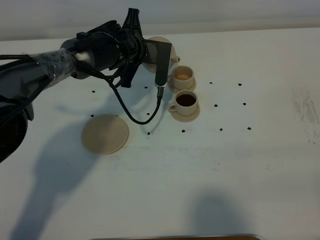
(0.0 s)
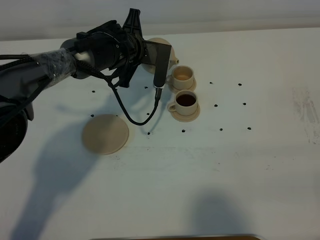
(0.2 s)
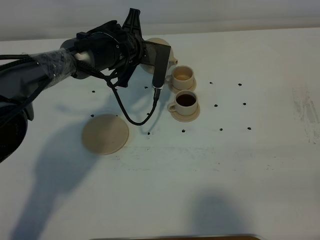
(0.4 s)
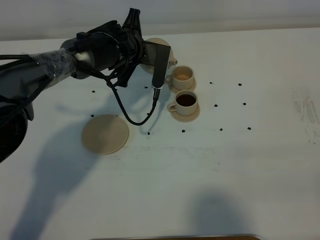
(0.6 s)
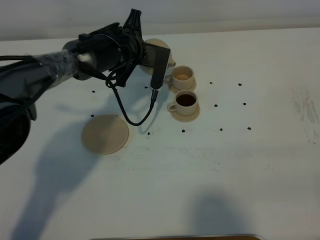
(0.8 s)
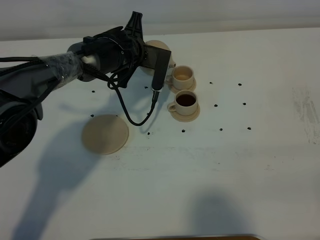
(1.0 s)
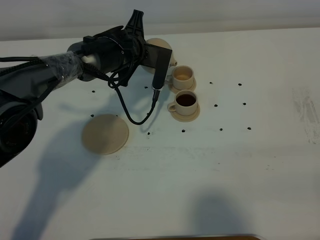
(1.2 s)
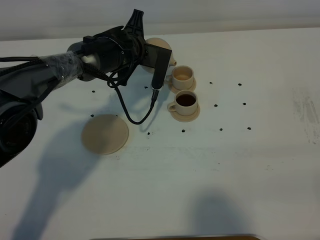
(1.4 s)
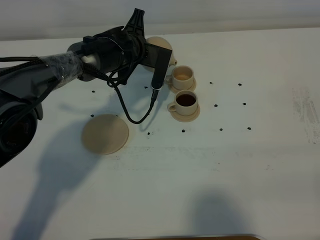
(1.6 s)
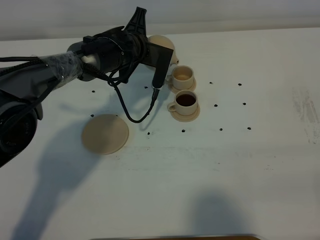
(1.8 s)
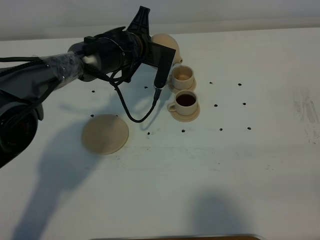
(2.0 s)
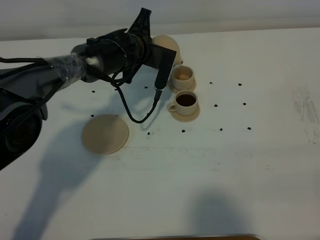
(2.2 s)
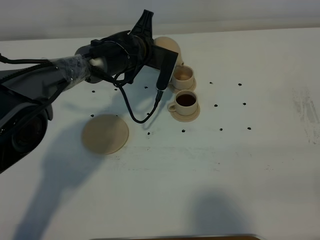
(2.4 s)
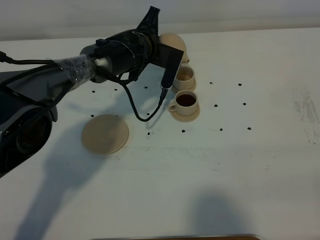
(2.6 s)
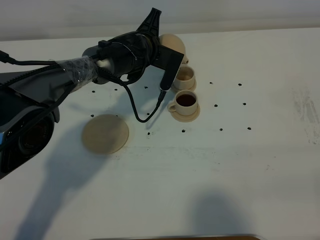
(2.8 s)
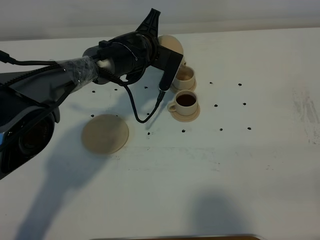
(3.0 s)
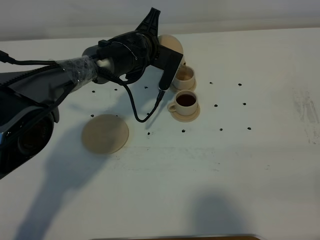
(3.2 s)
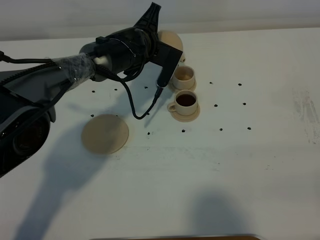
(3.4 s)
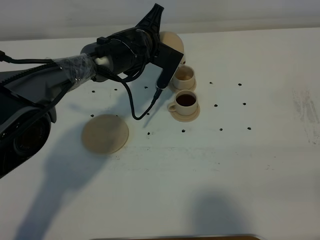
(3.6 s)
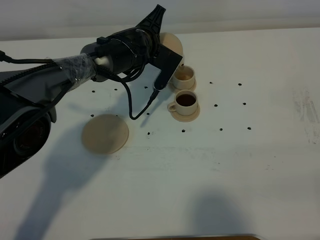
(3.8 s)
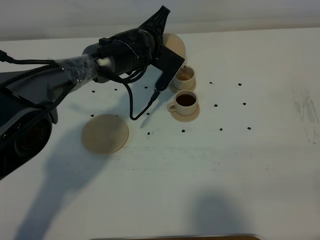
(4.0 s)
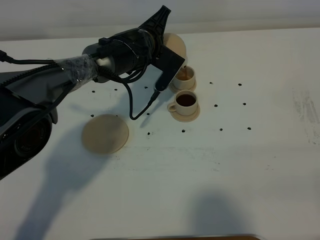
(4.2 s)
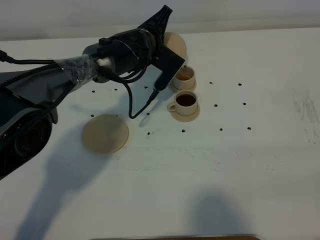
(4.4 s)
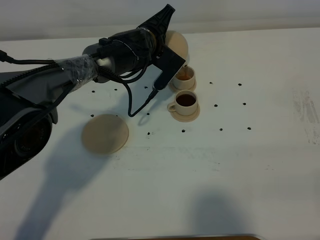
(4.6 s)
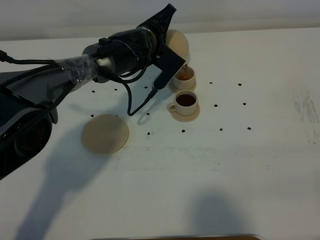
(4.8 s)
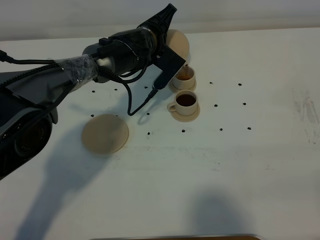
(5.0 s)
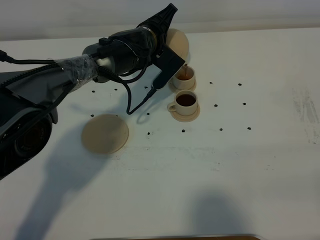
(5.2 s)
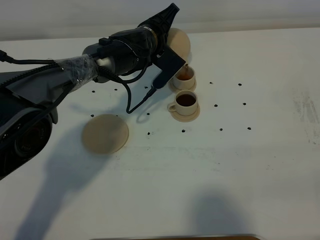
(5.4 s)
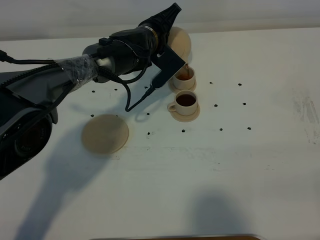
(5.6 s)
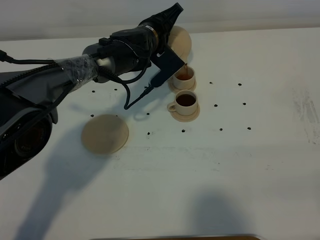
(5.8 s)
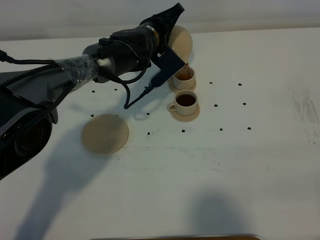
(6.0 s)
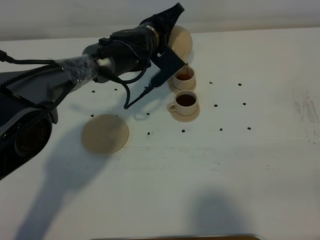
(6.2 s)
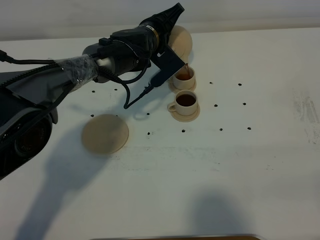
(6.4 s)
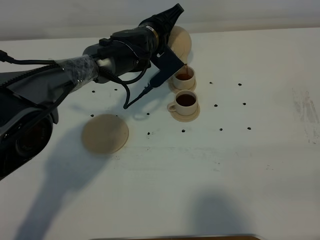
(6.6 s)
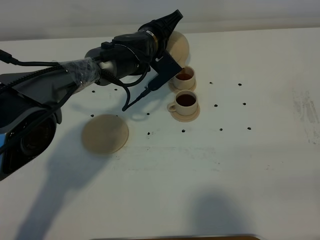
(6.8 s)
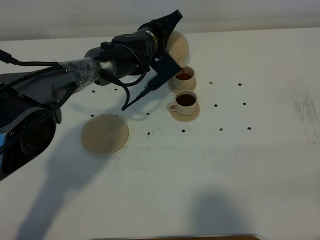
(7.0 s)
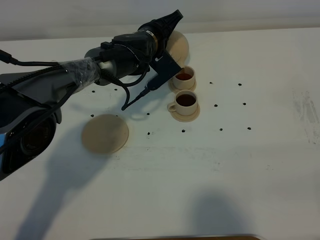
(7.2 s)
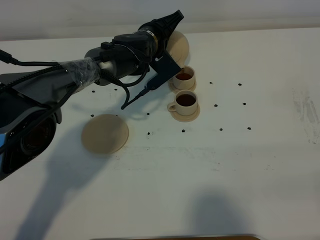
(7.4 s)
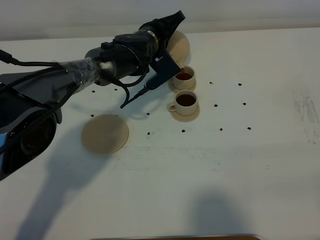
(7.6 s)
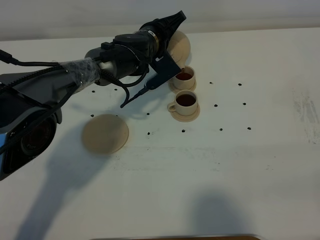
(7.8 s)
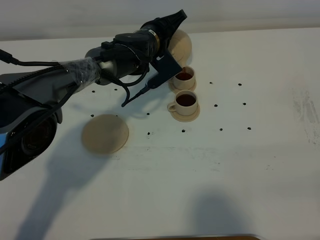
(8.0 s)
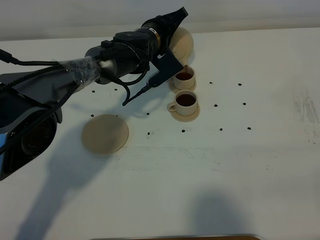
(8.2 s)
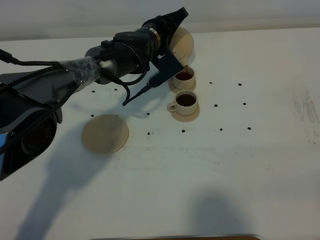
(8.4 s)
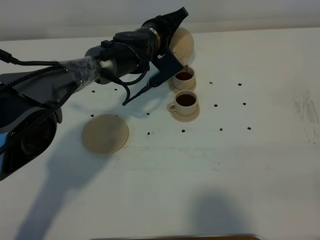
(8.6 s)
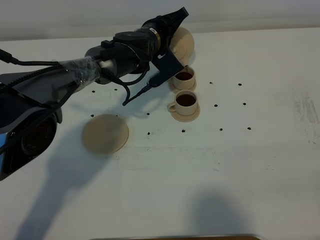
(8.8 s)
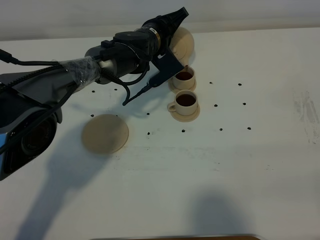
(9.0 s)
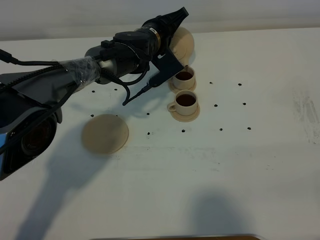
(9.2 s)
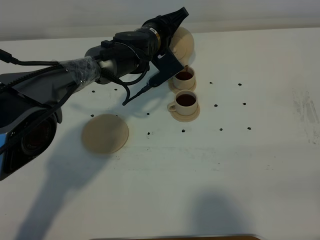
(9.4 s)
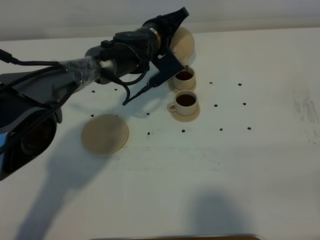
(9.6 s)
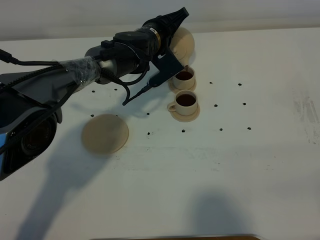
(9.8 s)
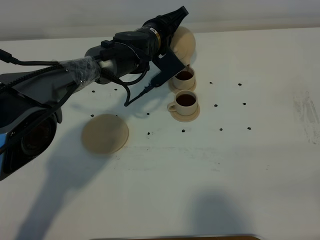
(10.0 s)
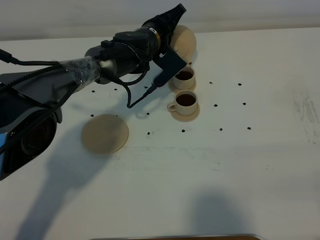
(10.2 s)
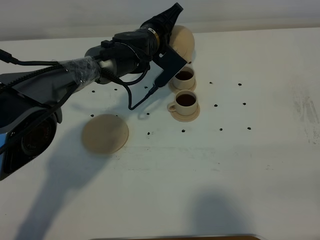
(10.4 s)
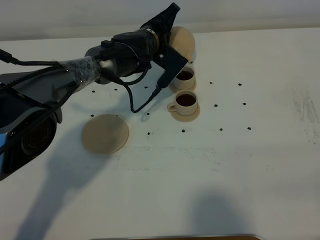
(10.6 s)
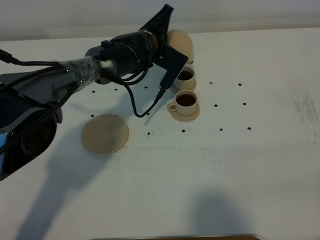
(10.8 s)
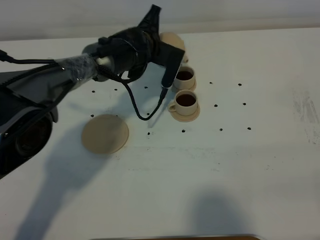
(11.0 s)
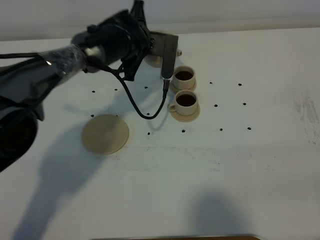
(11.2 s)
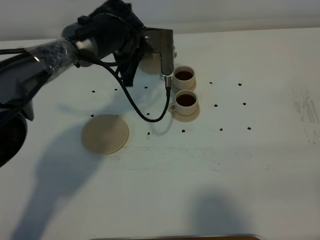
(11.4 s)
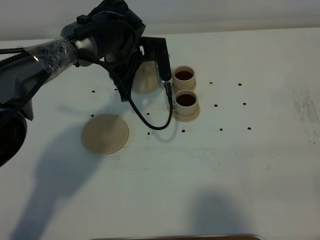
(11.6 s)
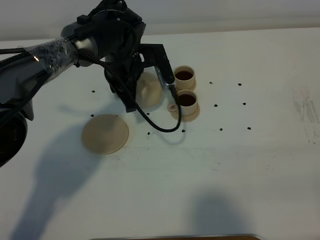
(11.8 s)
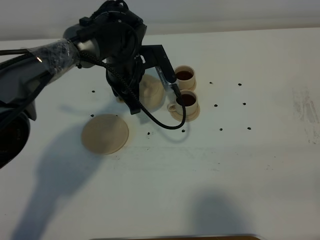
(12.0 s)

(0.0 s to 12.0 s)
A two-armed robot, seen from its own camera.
Task of the whole recording: grasp the brown teapot and pour the tea into the two brown teacups one by one, put the brown teapot back in its original place.
Step, 0.0 s - 11.2 s: Pour tea into the teacup with the left gripper.
0.0 s - 3.0 s: The grippers make only small movements.
3.0 s - 4.4 s: The grippers move only a little.
4.4 s - 7.6 s: The grippers move only a little.
7.6 s - 9.0 s: Both grippers stay put.
9.0 s - 10.4 s: The grippers stay close to where they were, moving slightly.
10.4 s - 12.0 s: The left gripper goes some 5 cm backward.

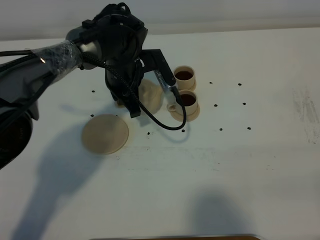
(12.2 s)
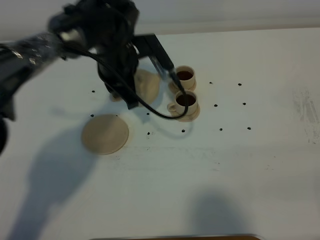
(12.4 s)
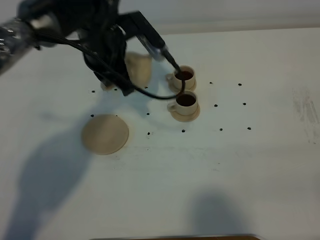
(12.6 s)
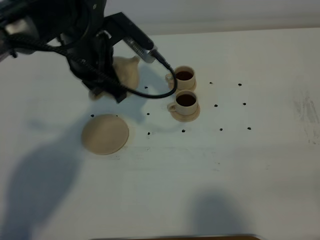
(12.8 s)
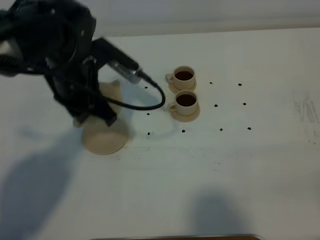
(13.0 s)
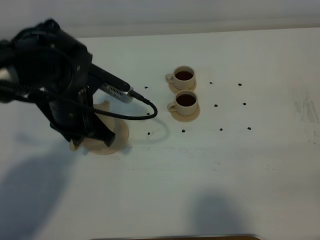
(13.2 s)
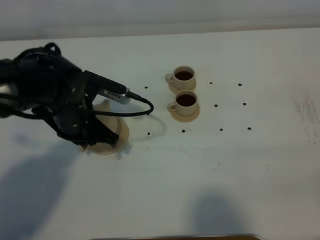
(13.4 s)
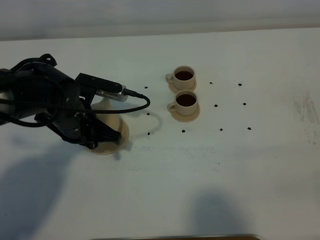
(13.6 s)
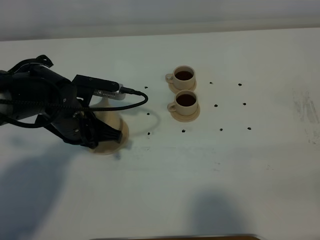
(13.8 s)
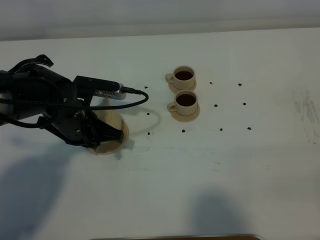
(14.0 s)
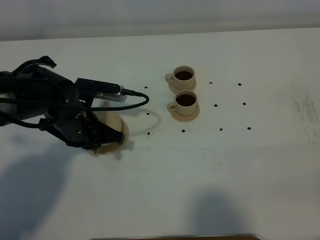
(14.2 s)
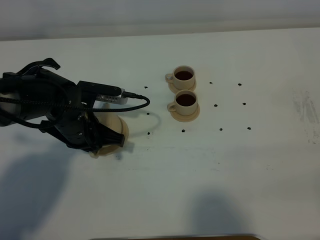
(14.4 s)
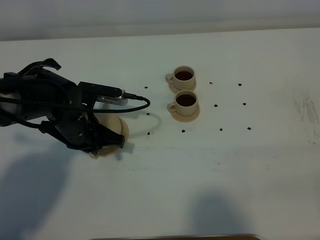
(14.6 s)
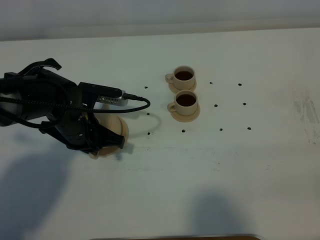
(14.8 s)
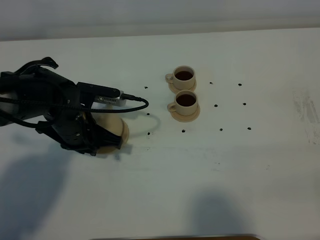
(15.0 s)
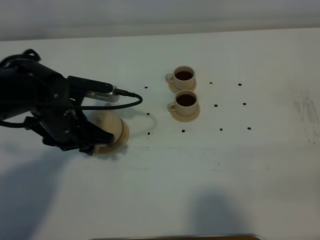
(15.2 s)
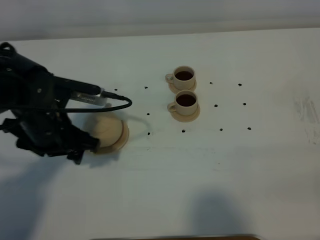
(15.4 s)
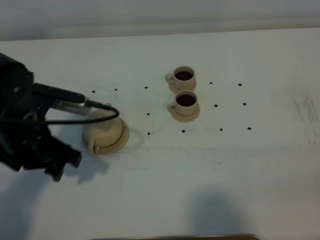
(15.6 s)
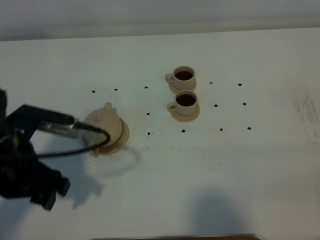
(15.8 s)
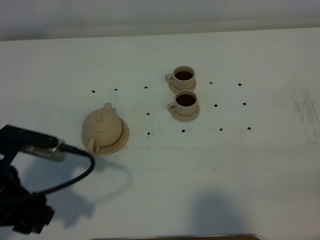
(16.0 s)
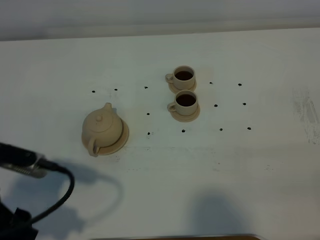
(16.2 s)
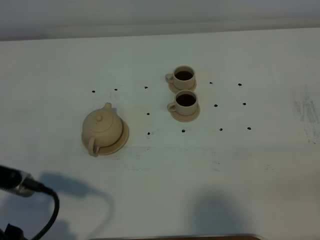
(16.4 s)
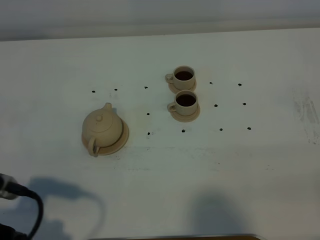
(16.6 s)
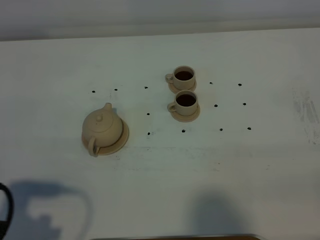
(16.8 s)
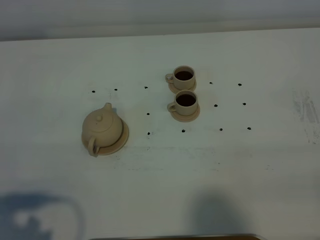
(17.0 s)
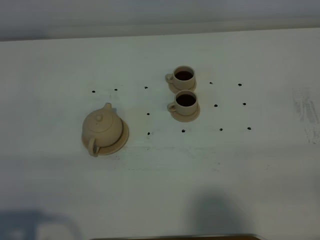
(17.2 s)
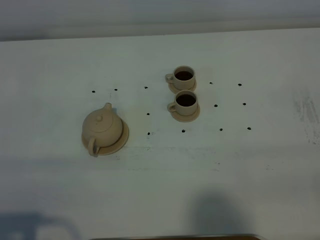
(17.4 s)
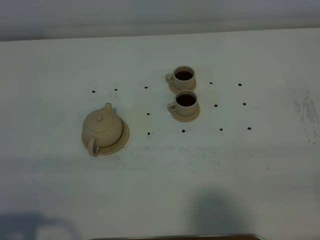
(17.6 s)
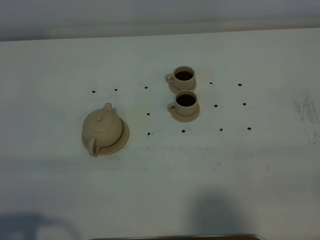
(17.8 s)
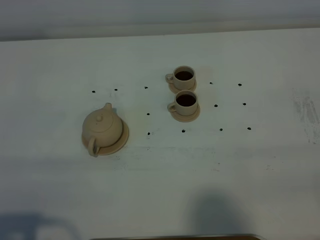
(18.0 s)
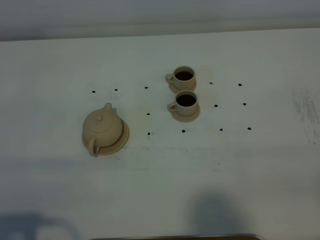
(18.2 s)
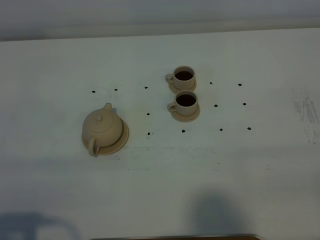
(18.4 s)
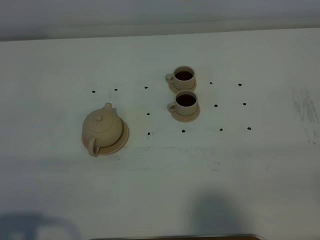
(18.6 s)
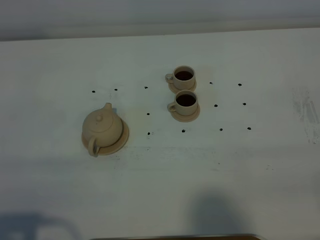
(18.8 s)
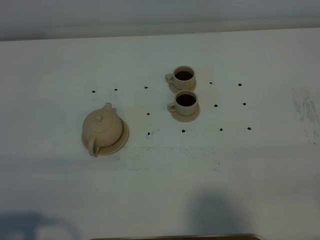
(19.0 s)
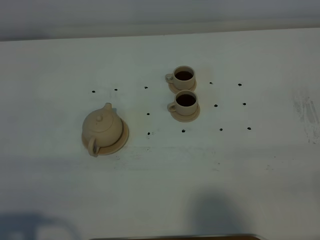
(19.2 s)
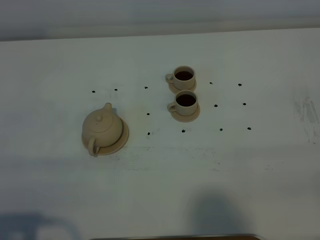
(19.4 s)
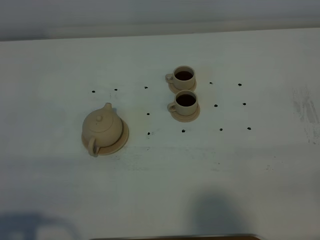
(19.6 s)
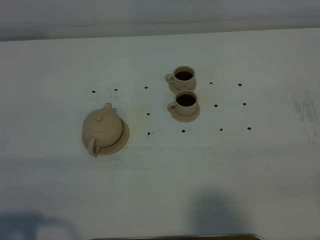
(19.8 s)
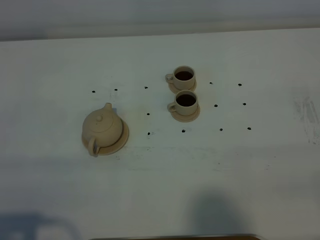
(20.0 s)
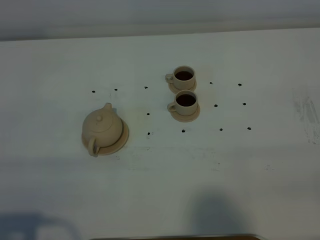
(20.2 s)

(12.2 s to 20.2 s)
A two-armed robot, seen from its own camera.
Task of the whole recording: grasp the brown teapot and pour the tea into the two brown teacups one by one, put the brown teapot back in its original place.
12.2 s - 13.8 s: The left gripper travels backward and to the left by about 15 cm.
13.8 s - 15.4 s: The left gripper ends up approximately 5 cm from where it was, and opens its fingers.
15.4 s - 17.0 s: The left gripper shifts approximately 25 cm backward and to the left.
17.0 s - 18.6 s: The grippers move only a little.
18.6 s - 20.2 s: The two grippers keep their place.

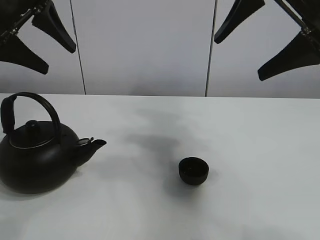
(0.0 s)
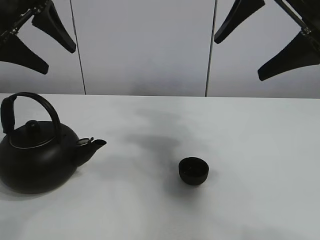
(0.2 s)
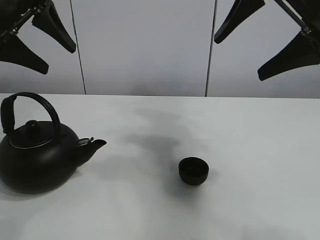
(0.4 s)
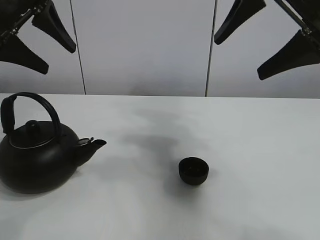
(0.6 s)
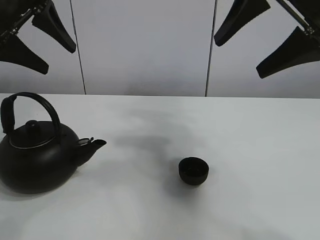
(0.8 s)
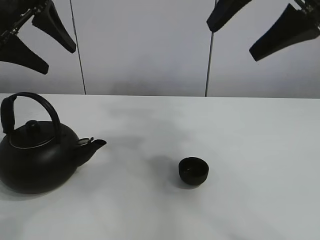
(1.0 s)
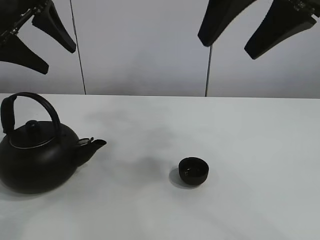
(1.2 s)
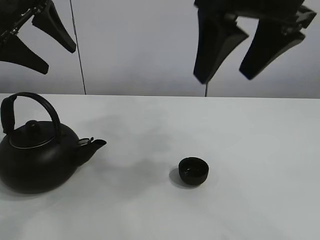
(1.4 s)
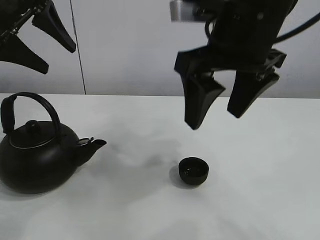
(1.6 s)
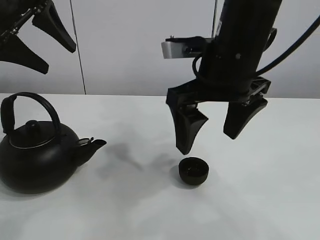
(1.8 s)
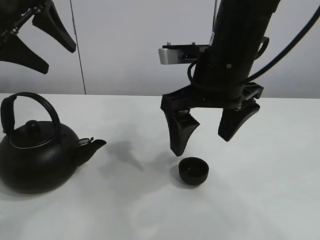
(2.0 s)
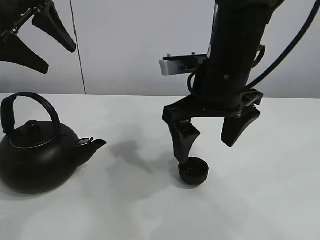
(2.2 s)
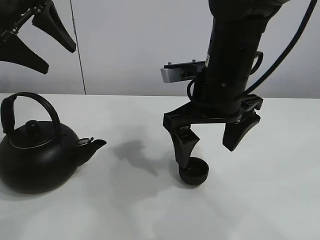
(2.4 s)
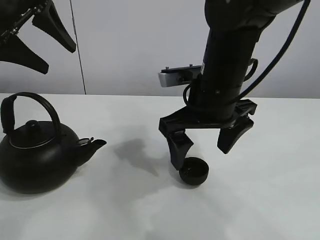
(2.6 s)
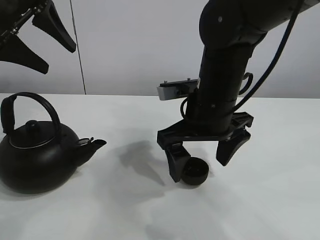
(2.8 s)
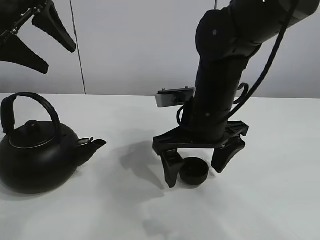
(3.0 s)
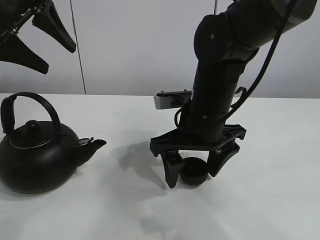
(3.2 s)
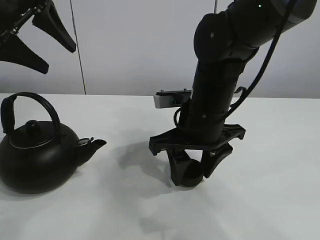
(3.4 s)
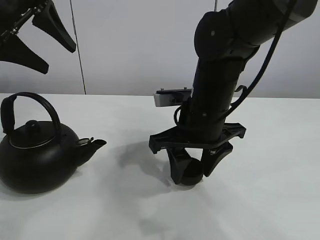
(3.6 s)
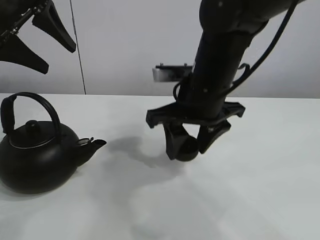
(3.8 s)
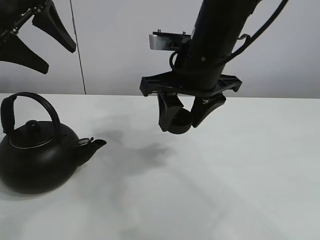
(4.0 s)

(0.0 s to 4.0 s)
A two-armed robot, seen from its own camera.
Task of the whole recording: pour tea into the teacup.
Step, 0.0 s - 3.6 s: Pick up the teacup with the right gripper.
1.4 s - 2.6 s: The right gripper shifts roughly 15 cm downward and forward, and opens.
2.6 s - 4.0 s: The right gripper closes up.
